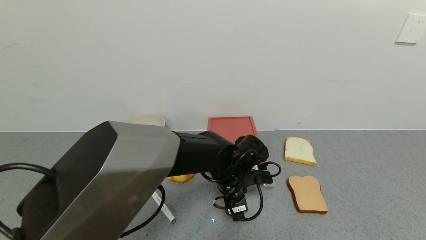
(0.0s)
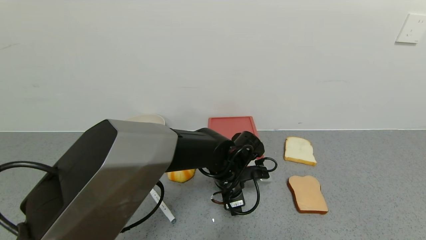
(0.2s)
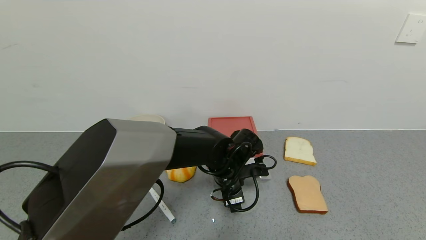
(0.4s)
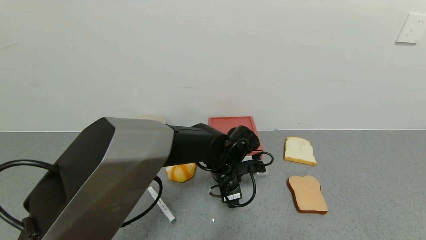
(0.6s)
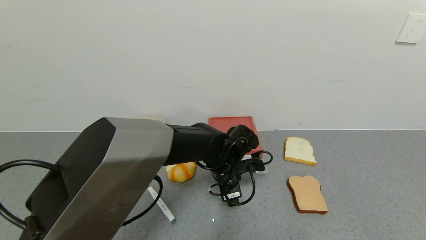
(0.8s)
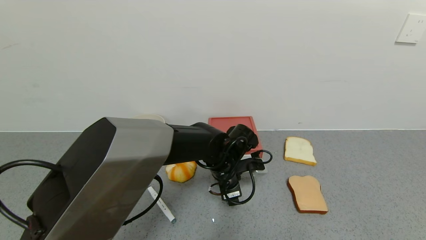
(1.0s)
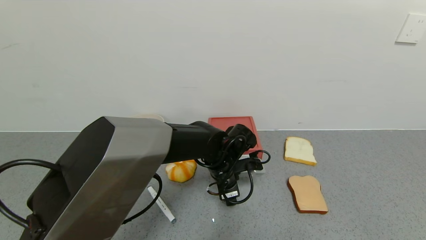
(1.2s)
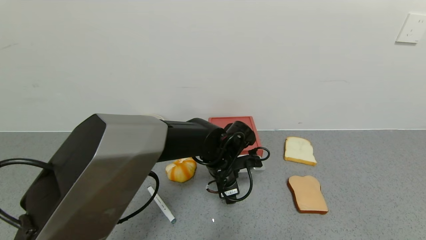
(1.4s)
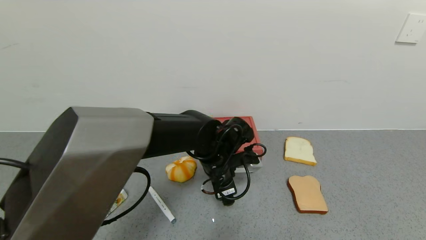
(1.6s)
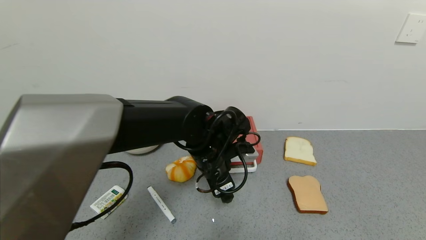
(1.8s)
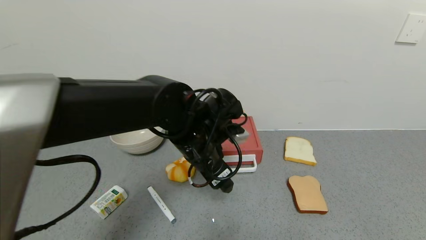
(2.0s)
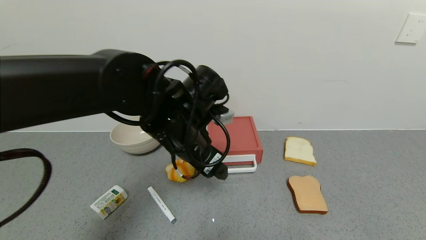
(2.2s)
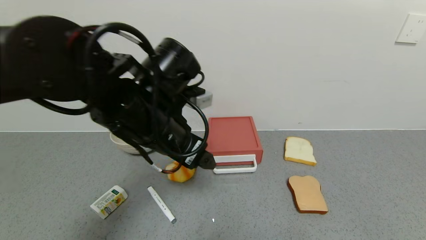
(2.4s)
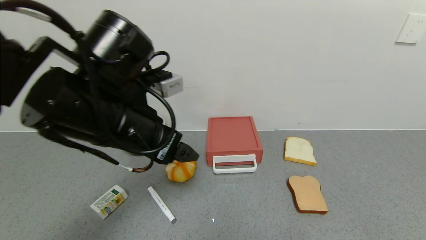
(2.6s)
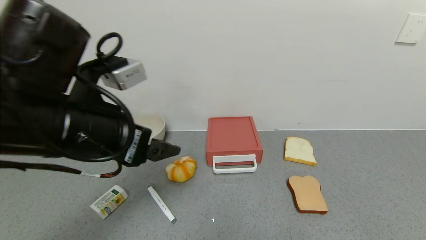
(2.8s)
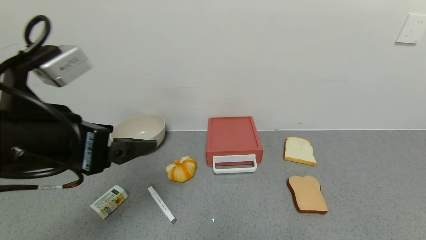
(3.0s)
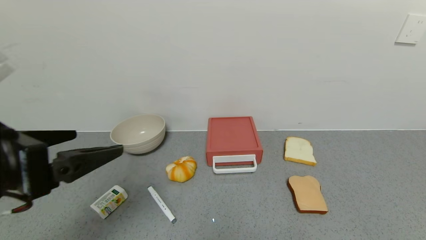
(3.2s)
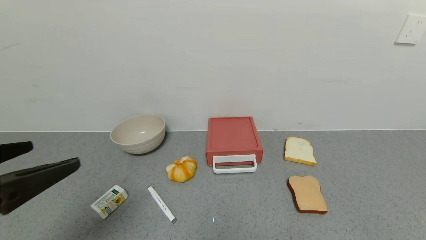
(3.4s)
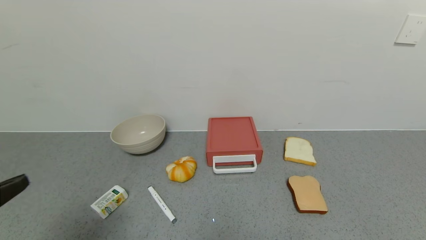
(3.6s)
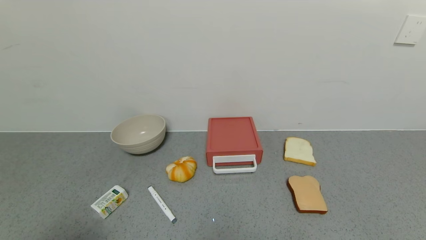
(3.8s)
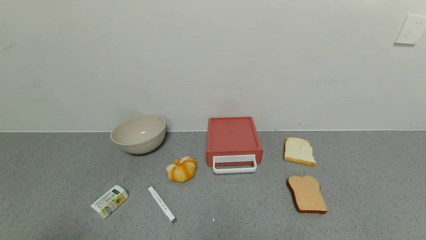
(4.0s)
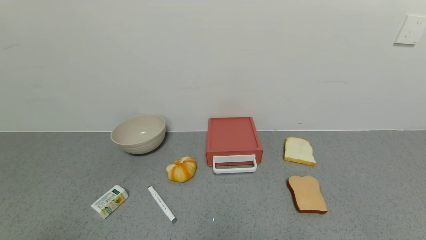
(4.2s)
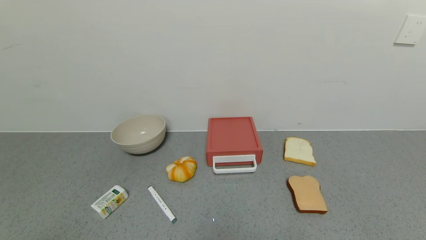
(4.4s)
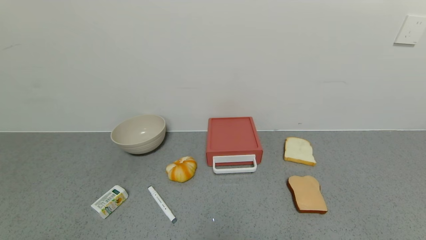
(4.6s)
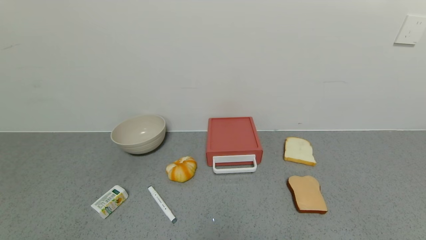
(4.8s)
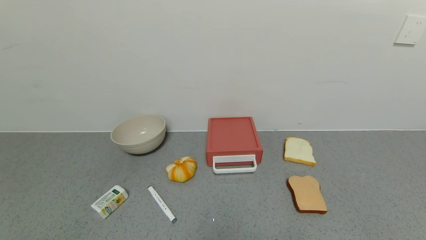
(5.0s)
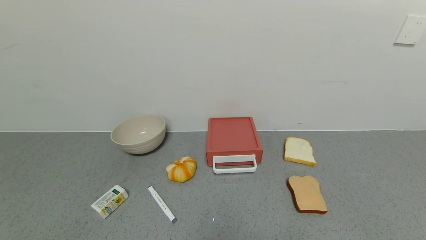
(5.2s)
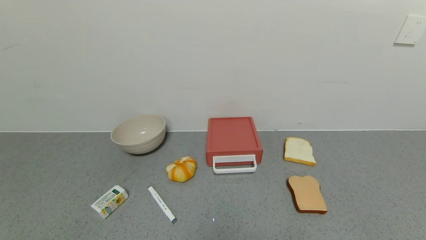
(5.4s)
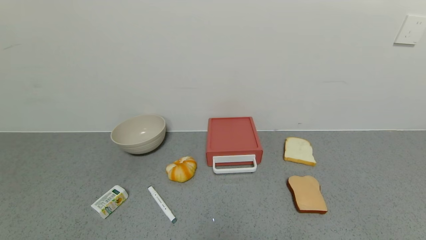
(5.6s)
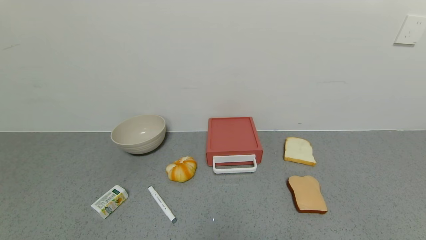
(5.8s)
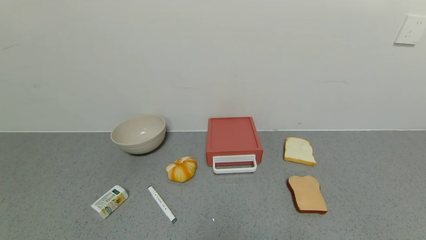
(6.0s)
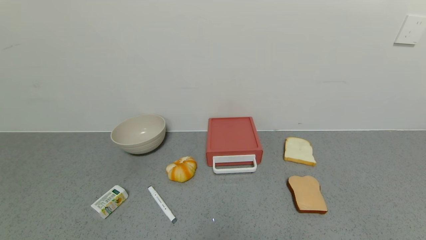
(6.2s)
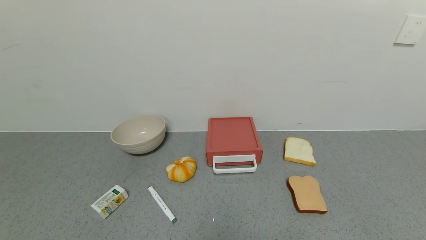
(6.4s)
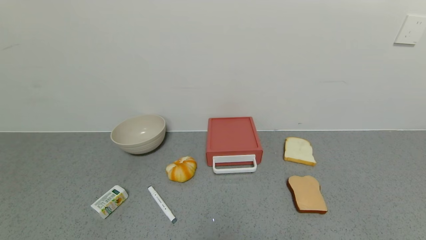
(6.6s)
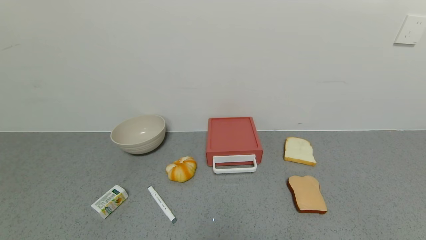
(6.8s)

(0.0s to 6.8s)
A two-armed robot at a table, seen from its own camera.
Task of the whole recording: use the gripper to open the drawer and close the red drawer.
Step, 0.0s - 2.0s: Close the red drawer with left gripper.
0.0s - 1.4s: There are only small adjustments of the grippers.
1.4s - 2.8s: The left gripper travels upward, to the left and backward by roughly 30 cm.
2.8s - 4.0s: The left gripper goes about 25 cm backward and to the left.

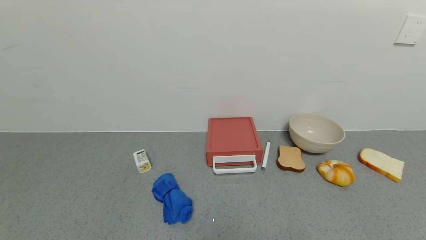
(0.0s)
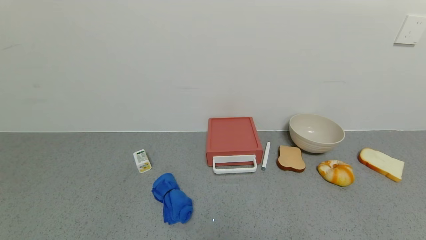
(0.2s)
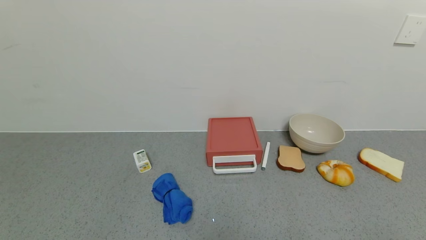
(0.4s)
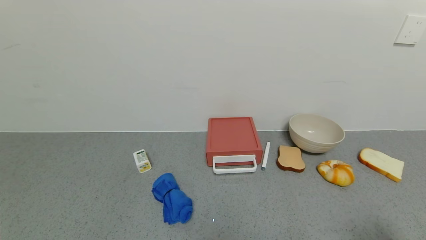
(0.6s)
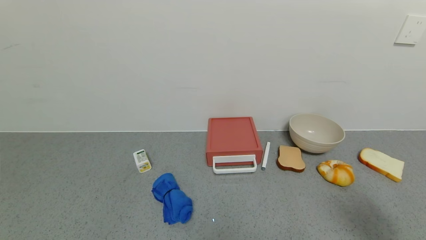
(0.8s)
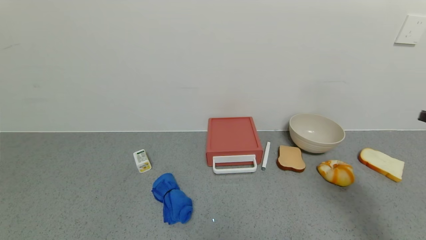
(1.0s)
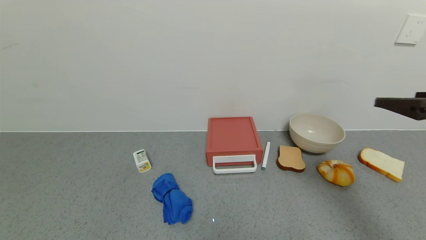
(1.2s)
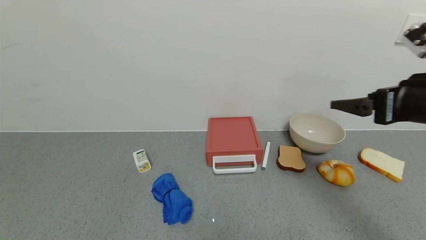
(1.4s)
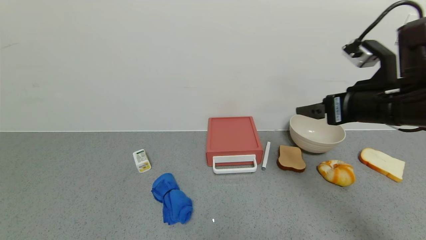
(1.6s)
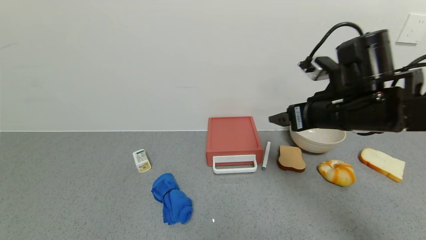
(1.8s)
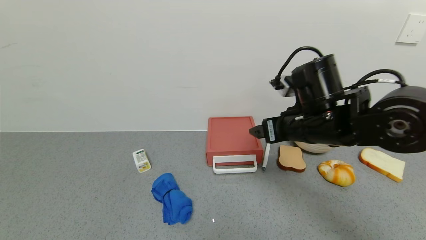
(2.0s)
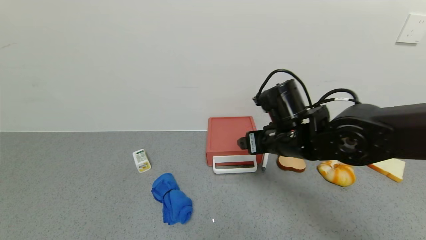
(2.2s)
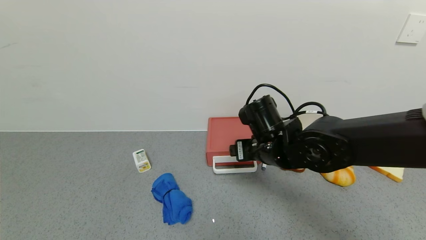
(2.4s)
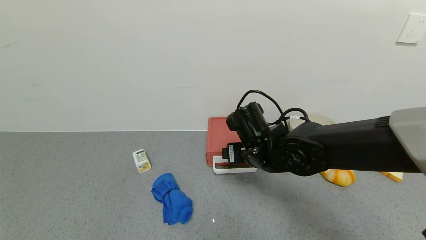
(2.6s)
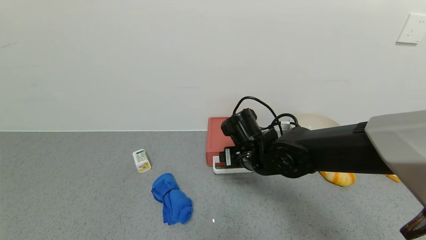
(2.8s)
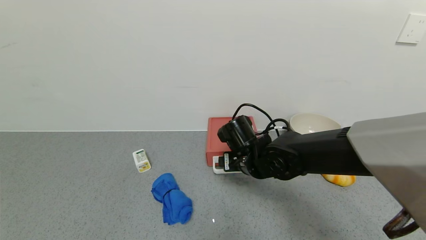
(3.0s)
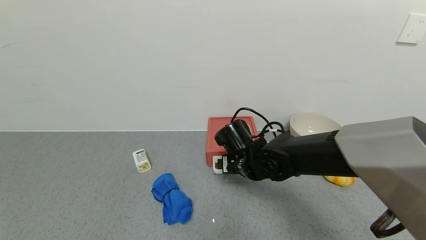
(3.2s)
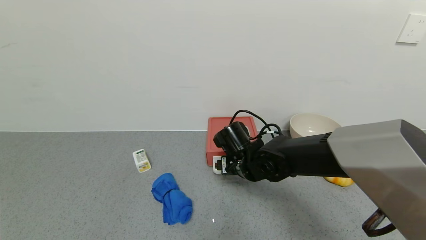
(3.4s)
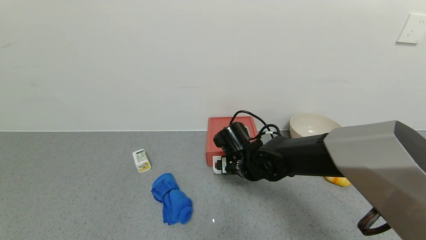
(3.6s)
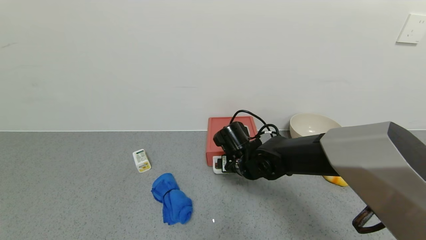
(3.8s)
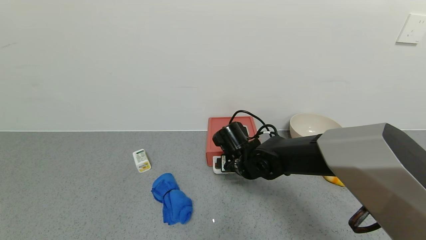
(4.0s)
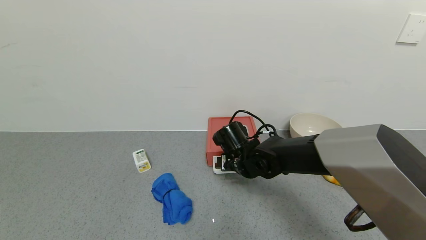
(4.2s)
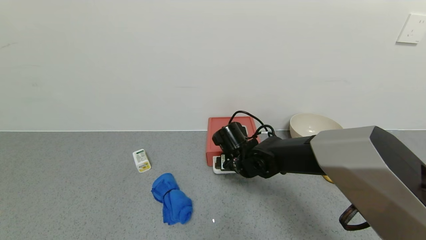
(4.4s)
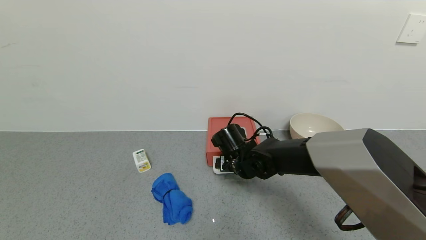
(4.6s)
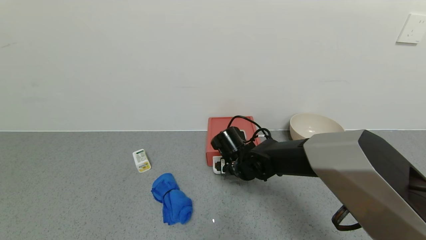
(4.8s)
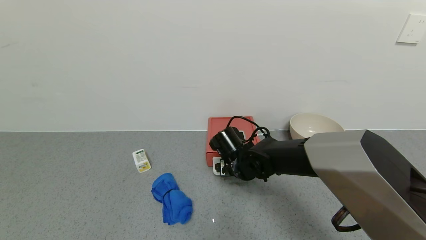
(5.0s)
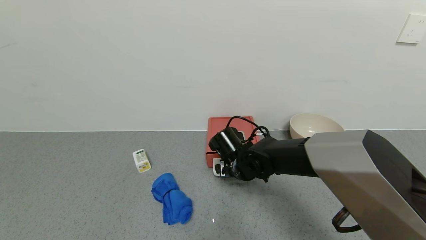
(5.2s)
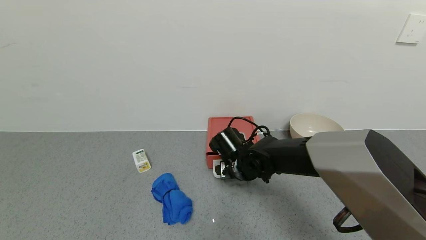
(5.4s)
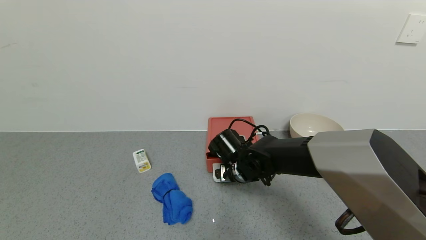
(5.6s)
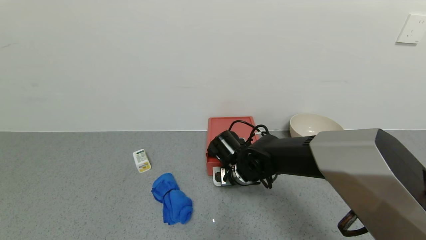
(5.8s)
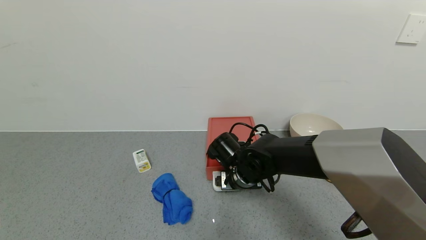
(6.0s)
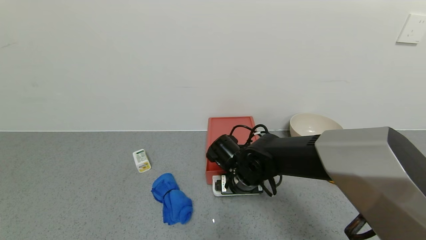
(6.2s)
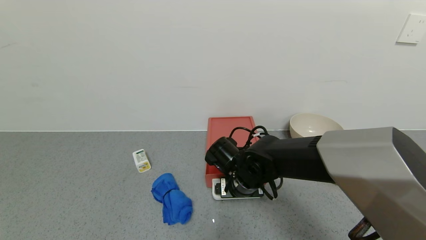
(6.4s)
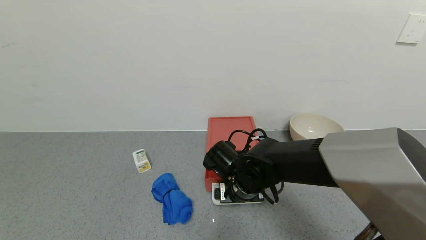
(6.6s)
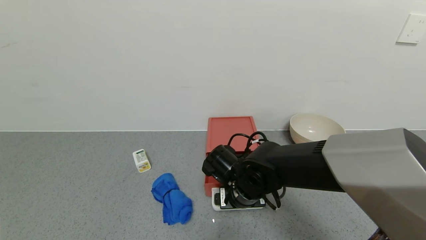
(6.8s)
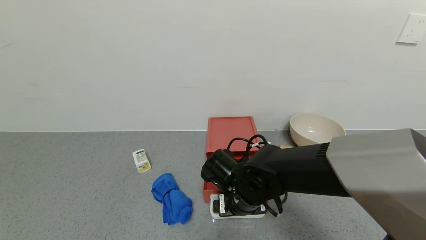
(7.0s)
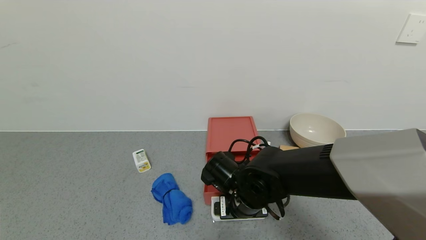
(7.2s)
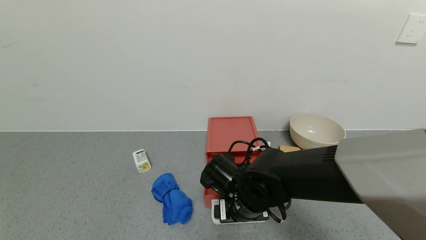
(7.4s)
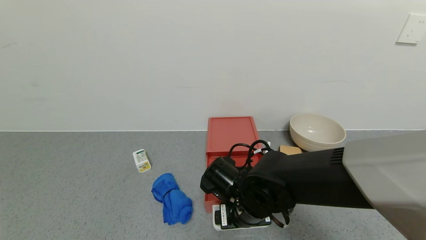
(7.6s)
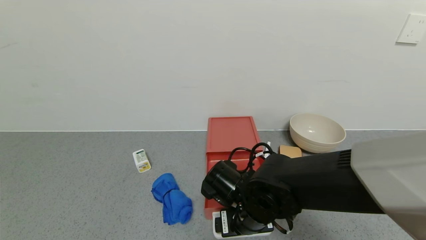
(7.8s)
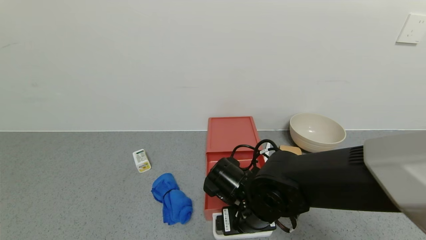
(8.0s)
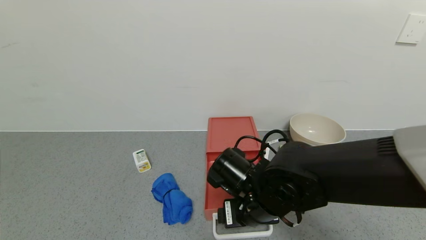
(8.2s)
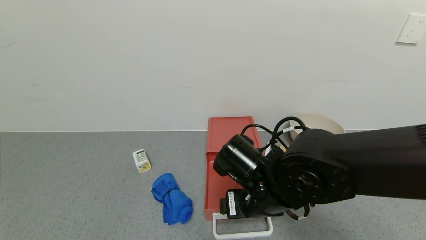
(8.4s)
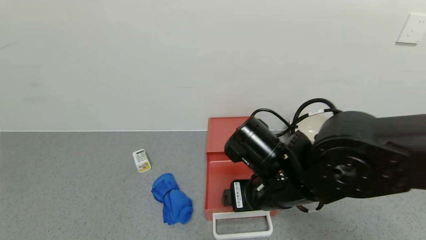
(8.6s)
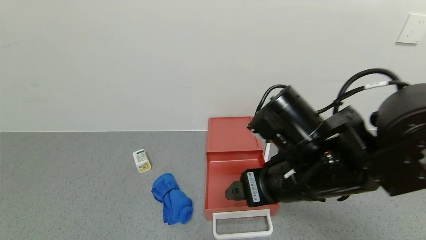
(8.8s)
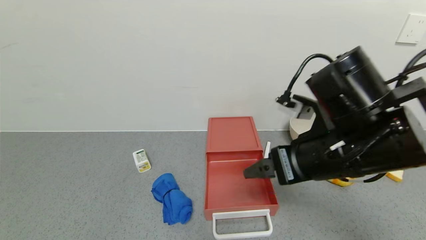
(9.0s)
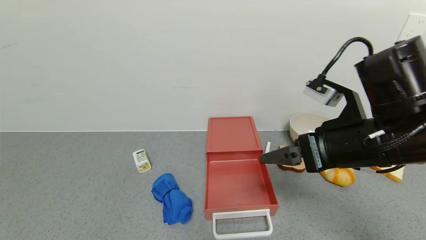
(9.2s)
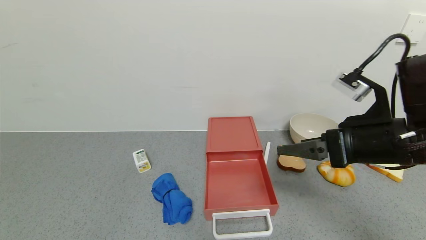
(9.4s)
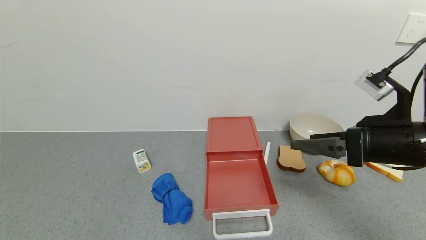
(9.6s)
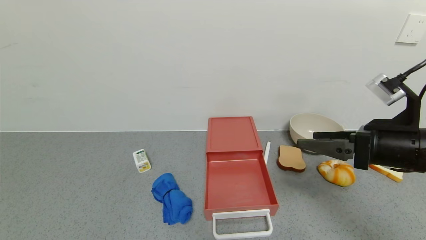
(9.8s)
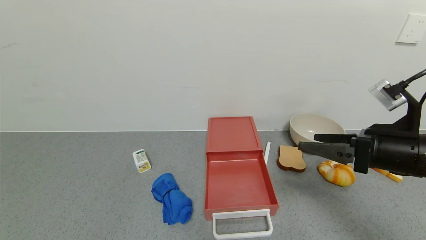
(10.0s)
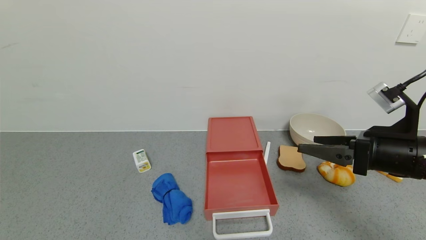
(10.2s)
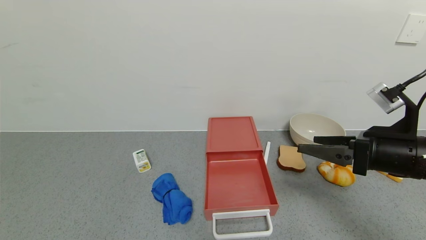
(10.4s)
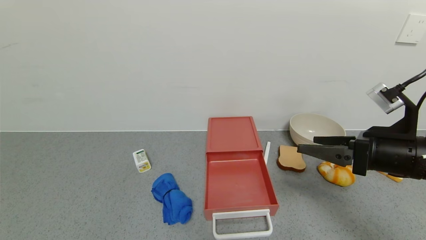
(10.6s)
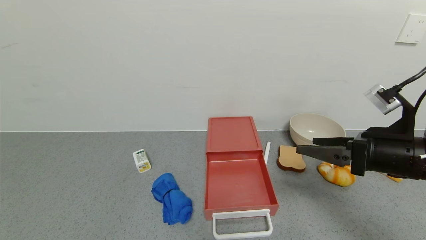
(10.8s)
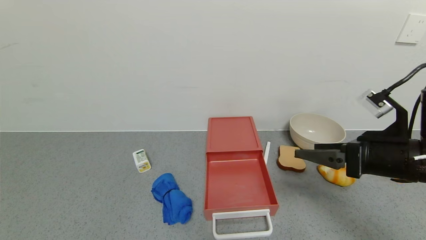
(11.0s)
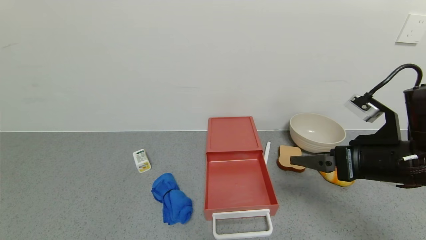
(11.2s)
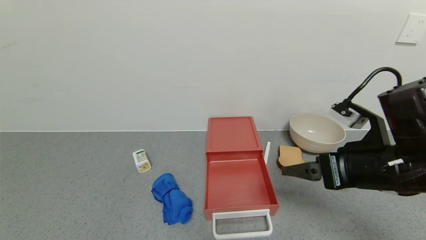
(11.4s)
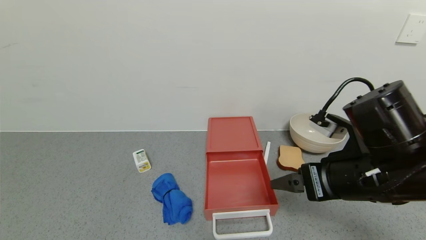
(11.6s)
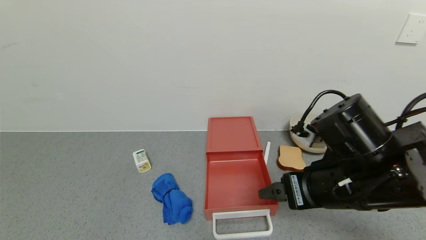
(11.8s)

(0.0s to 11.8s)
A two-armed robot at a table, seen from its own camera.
Task of the whole recording: use the gripper to open the drawer and close the red drawer.
Step, 0.0s - 8.6s: Open the red drawer with the right gripper.
0.0s - 1.4s: The right gripper shifts roughly 35 cm forward and upward.
1.4s - 3.0s: The right gripper shifts about 30 cm to the left, downward and forward.
3.0s - 6.0s: The grippers make only small movements.
6.0s - 7.4s: The right gripper heads backward, covering roughly 5 cm.
7.4s - 8.8s: The right gripper shifts about 15 cm upward and to the right.
8.8s - 10.4s: The right gripper shifts some 15 cm to the right.
10.4s - 11.8s: The right gripper is displaced to the left by roughly 10 cm.
